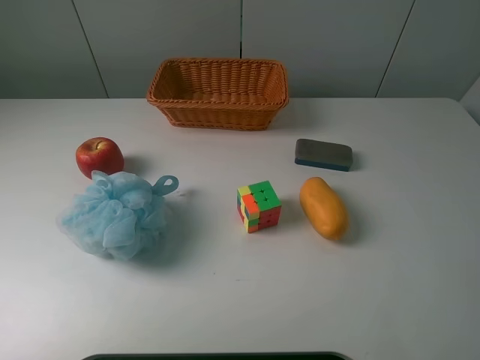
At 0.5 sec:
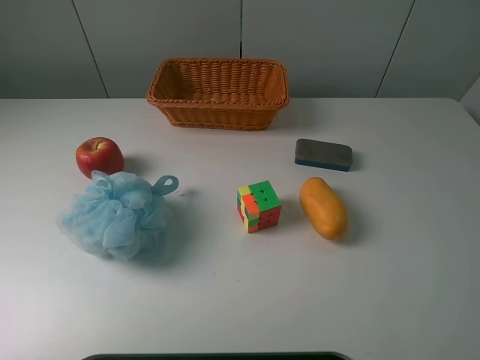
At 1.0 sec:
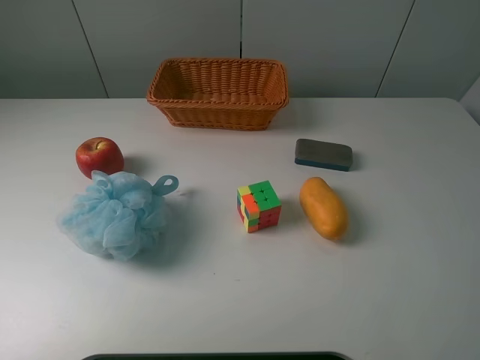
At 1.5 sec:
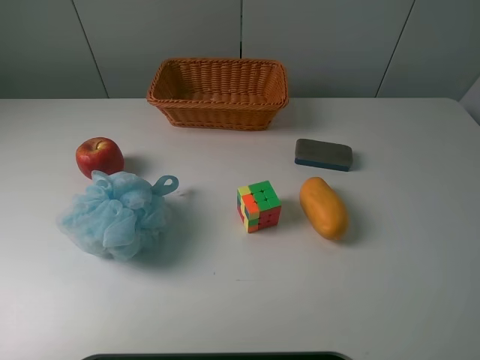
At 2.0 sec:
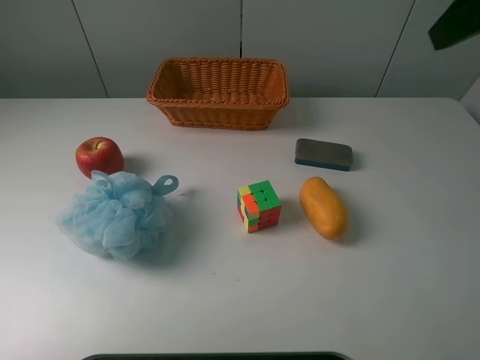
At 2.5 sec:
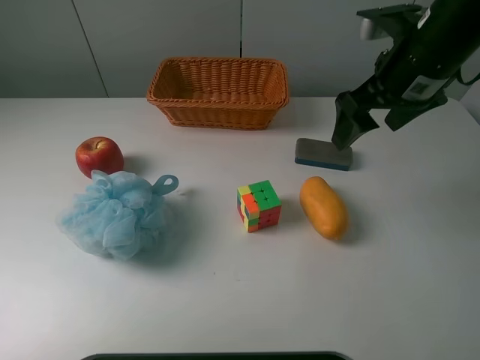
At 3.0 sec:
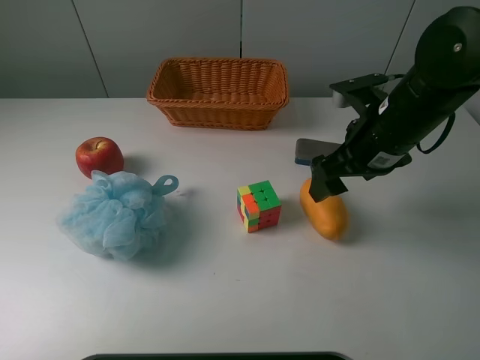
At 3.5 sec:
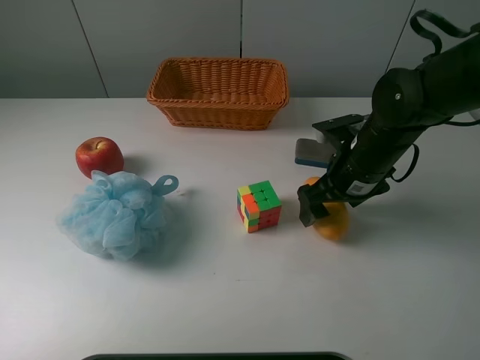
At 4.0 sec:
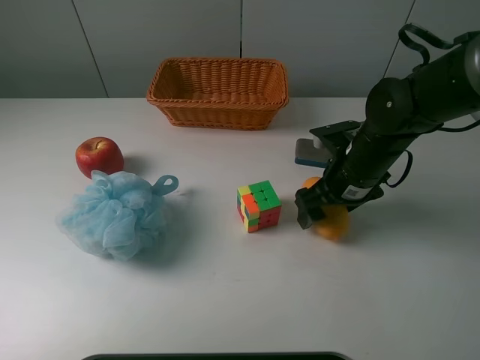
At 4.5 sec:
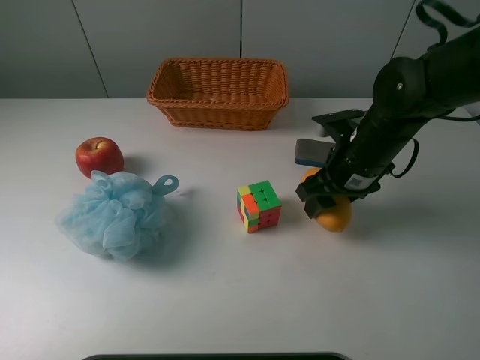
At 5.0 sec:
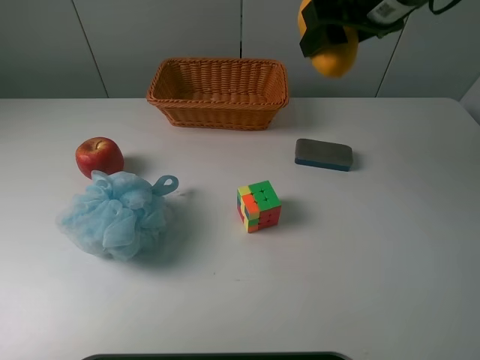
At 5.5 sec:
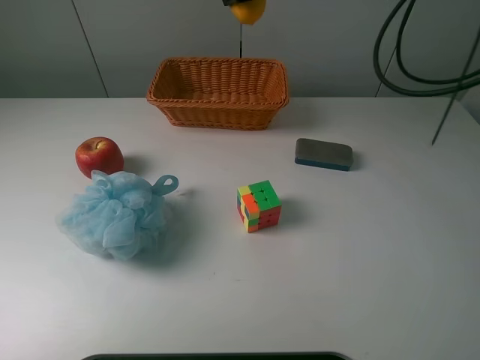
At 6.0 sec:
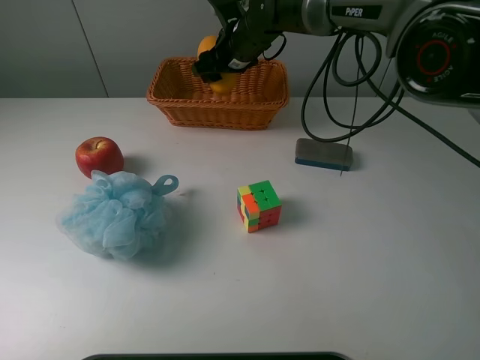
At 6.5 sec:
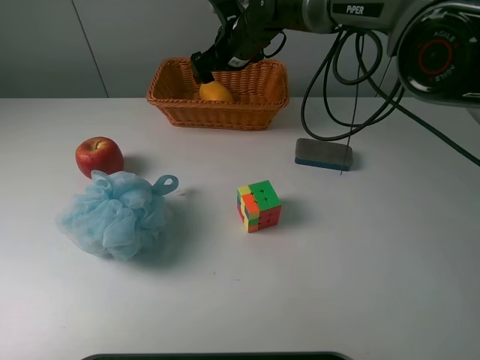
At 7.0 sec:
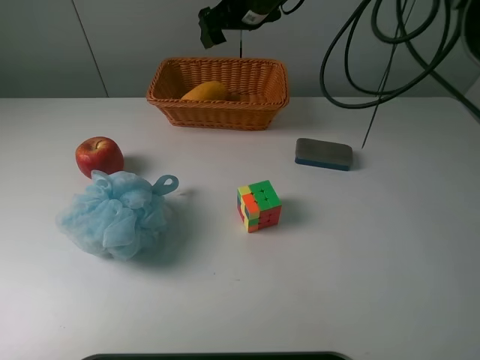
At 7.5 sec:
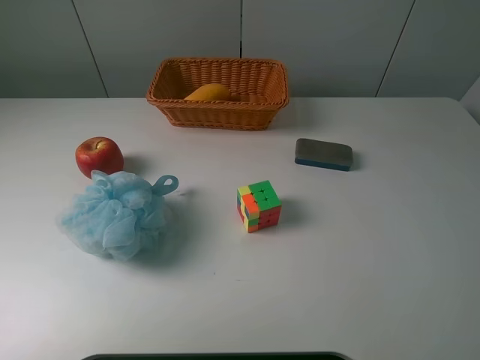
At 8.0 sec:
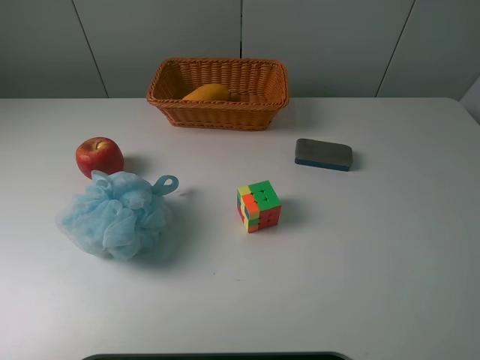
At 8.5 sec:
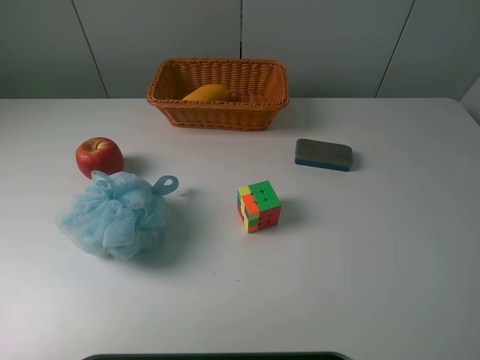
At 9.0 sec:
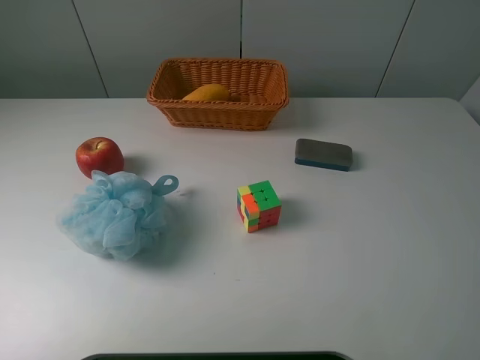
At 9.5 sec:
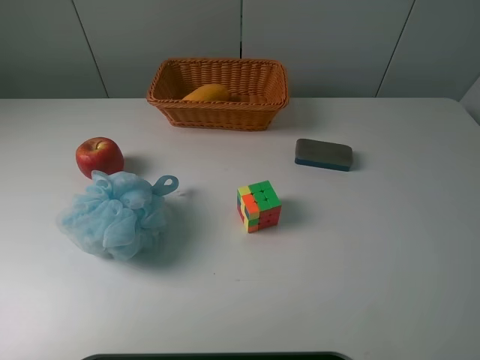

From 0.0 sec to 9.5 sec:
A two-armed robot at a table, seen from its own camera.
Task of the whole recording: use a picker to grab the item closest to the cube and place it in the basket.
Step, from 0.0 sec to 4.0 sec: Grasp the mango with the right gripper.
Step, from 4.5 sec to 6.5 sec: Place the mango into the basket with the right gripper.
From 0.0 sec to 2.0 sec: The right gripper is displaced forward by some 25 cm.
From 2.0 sec to 4.0 sec: The right gripper moves downward, roughly 25 cm, and closes.
From 4.0 sec to 5.5 sec: The right gripper is displaced upward, forward and to the left by some 30 cm, and closes its fingers.
From 5.5 sec to 7.5 sec: The right gripper moves upward, to the right and backward, approximately 25 cm, and opens up.
